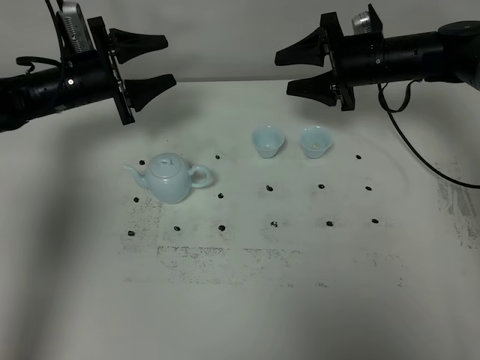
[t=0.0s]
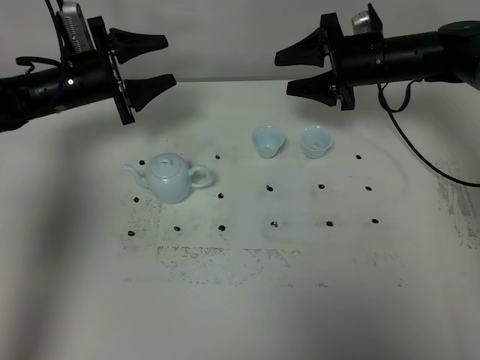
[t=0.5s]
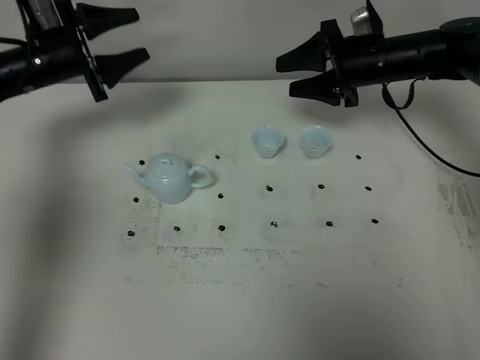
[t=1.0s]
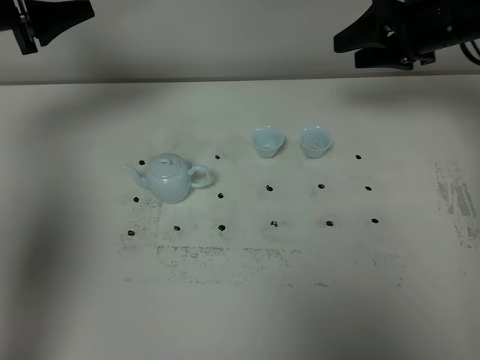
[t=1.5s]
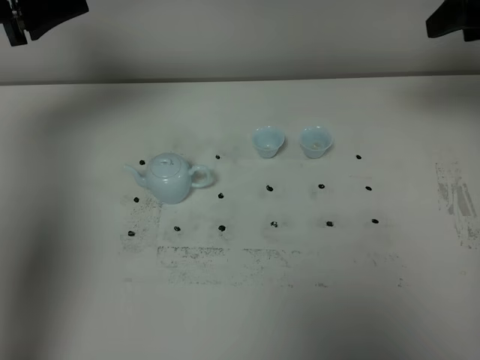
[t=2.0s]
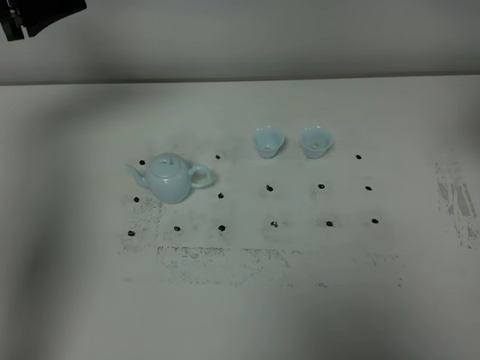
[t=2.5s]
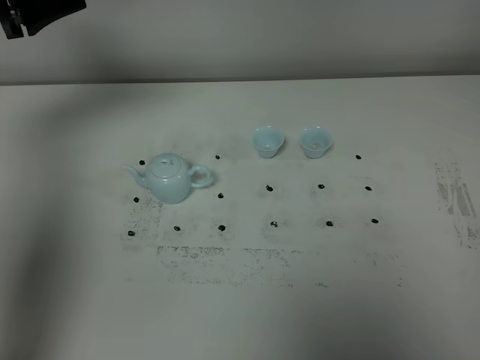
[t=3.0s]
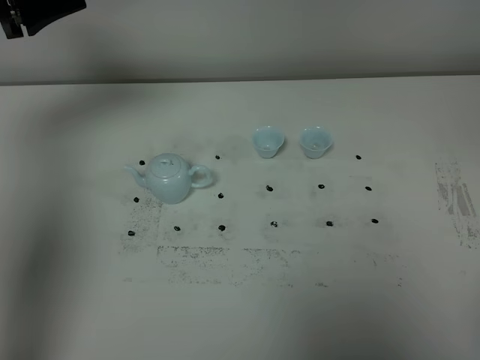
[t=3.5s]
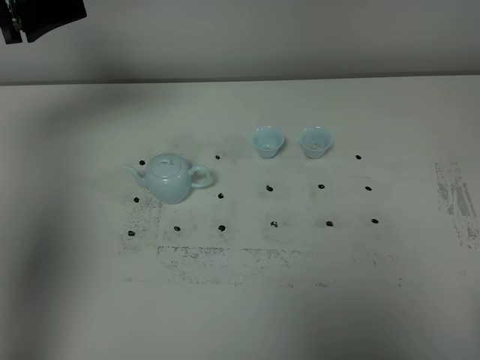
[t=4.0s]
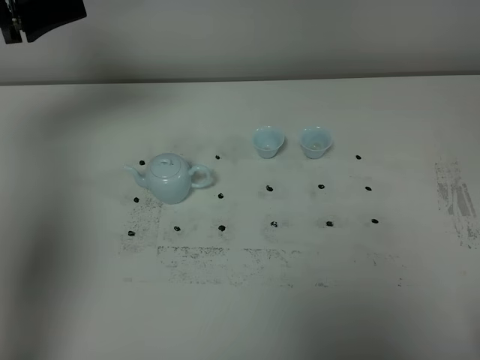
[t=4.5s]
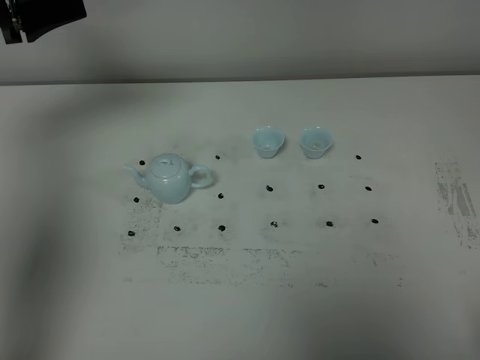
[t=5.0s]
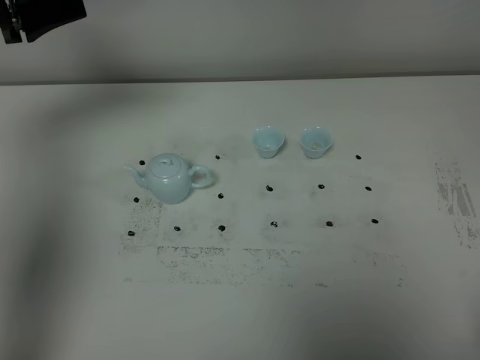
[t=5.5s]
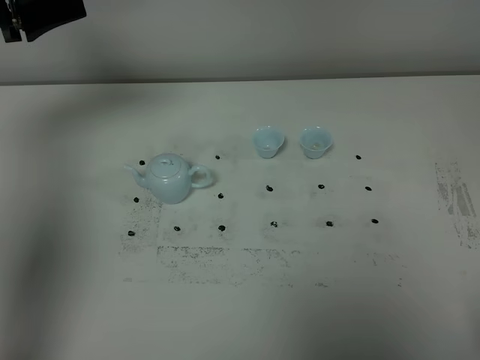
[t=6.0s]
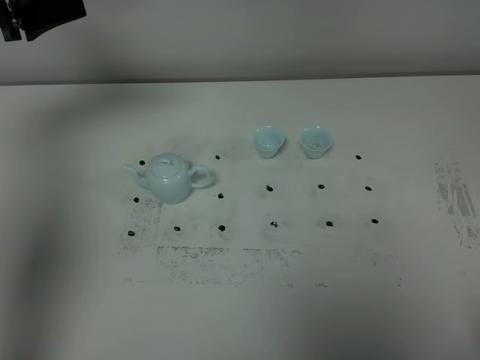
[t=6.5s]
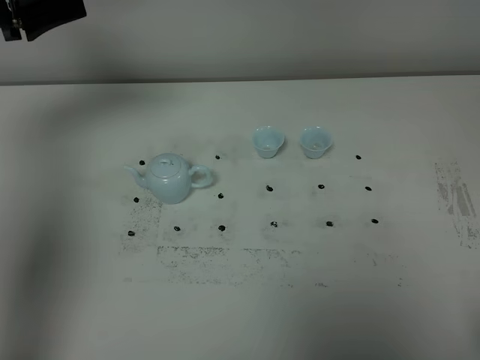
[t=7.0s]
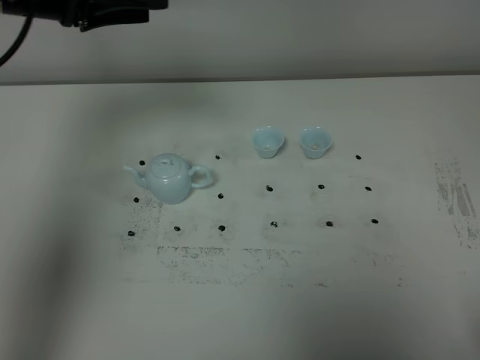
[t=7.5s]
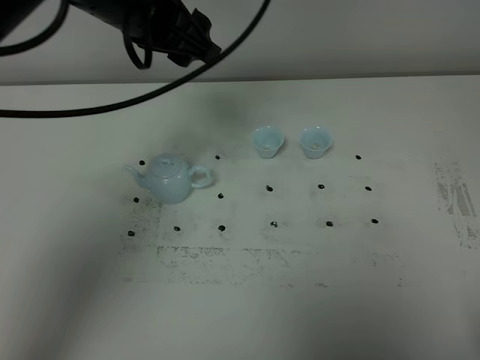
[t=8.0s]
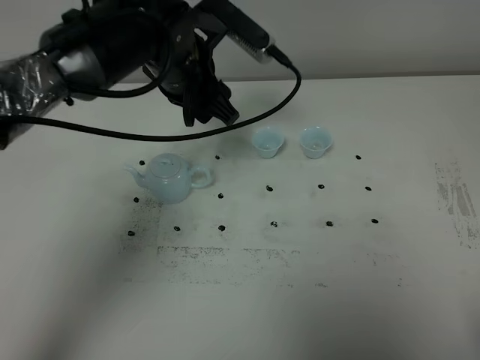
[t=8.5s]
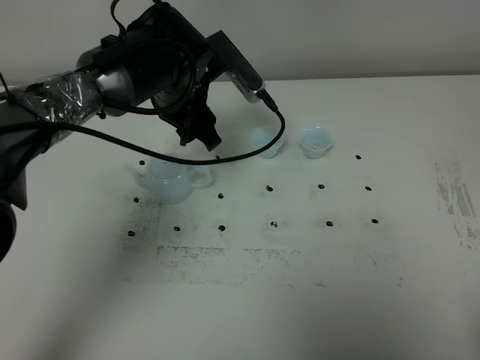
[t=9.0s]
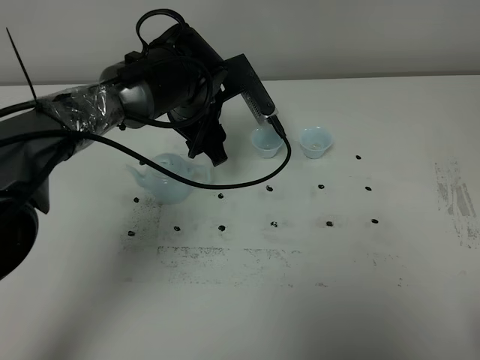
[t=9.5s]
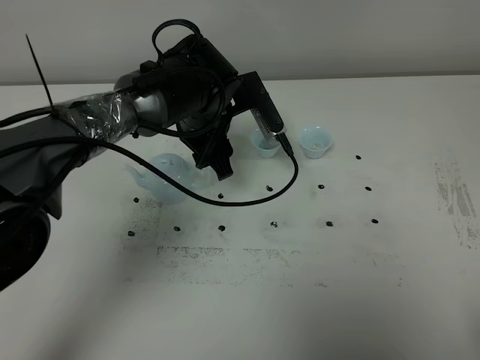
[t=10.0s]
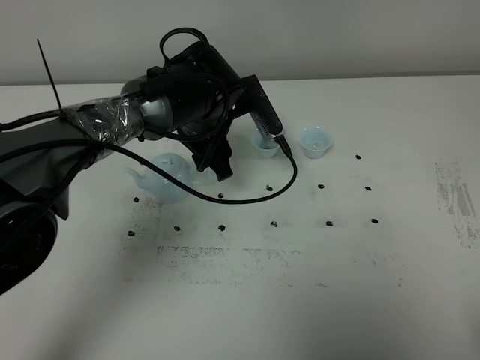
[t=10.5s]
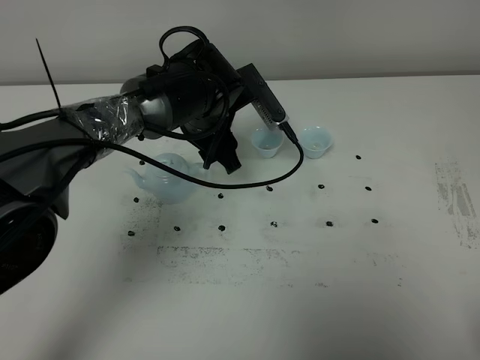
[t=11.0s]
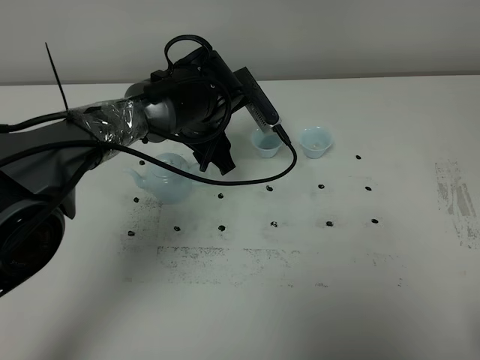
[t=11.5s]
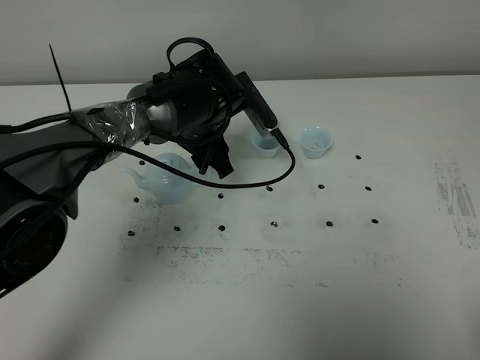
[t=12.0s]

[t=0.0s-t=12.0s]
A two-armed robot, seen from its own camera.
Task of the whole recording: grasp the blue porcelain teapot and pour the tea into the two blue porcelain teacups one by one, put the blue porcelain teapot back in its original place.
t=0.0s to t=2.0s: The left gripper heads upward, covering approximately 15 cm; the right gripper goes some 25 cm upward, backward and to the right.
t=2.0s to t=4.0s: The right gripper travels backward by about 40 cm.
t=4.0s to t=6.0s: Both grippers stay about where they are.
t=6.0s to t=8.0s: The left gripper goes some 20 cm to the right.
t=8.0s to t=10.0s: The left gripper shifts about 15 cm downward.
t=10.0s to t=12.0s: The grippers make only small movements.

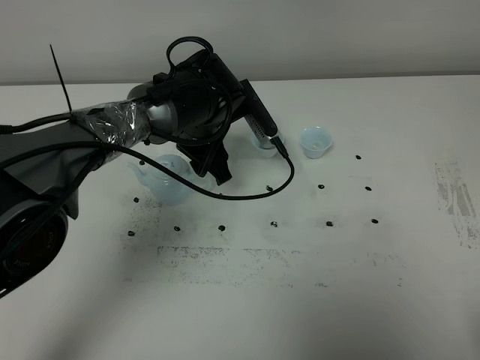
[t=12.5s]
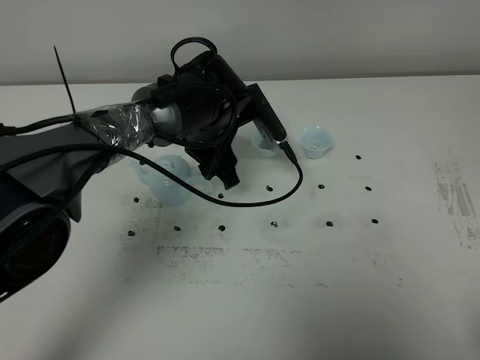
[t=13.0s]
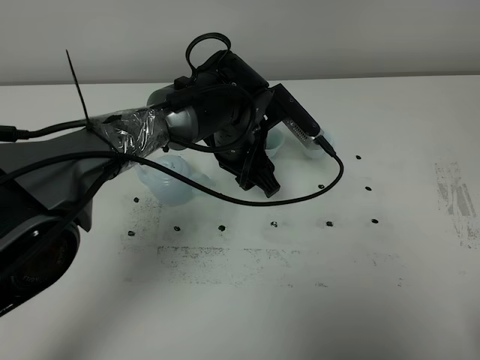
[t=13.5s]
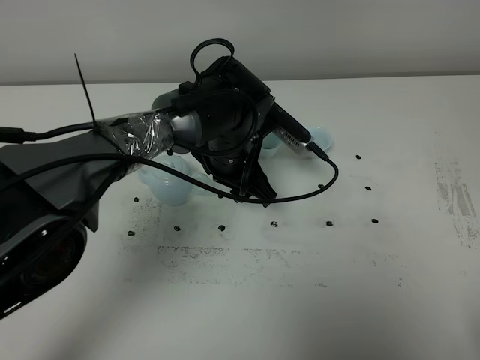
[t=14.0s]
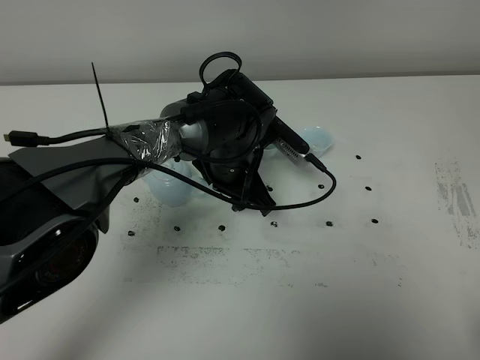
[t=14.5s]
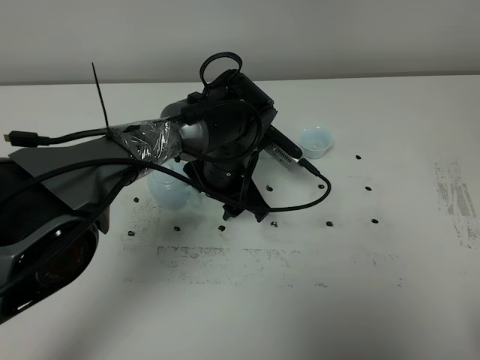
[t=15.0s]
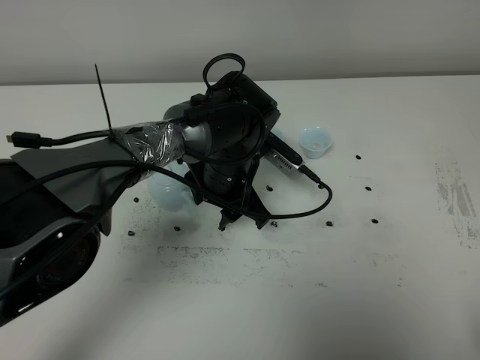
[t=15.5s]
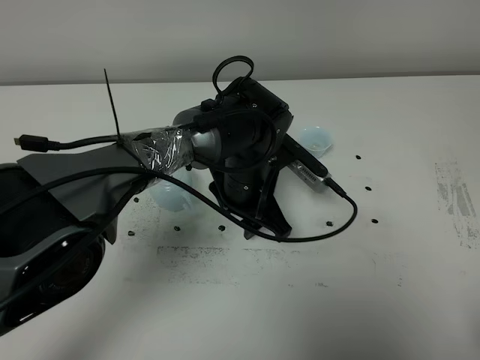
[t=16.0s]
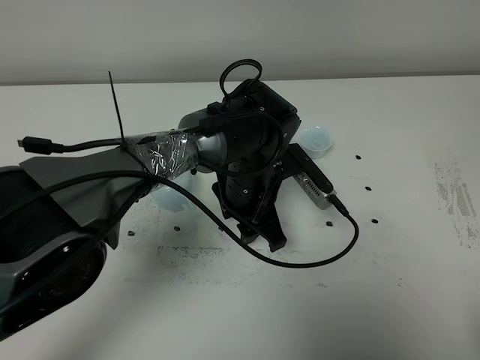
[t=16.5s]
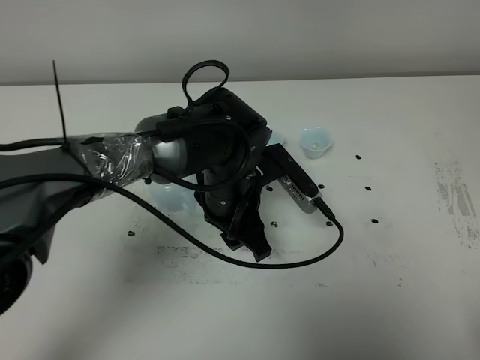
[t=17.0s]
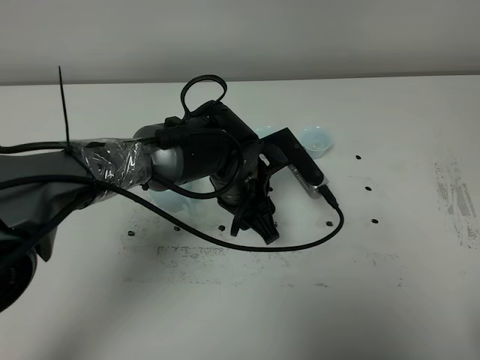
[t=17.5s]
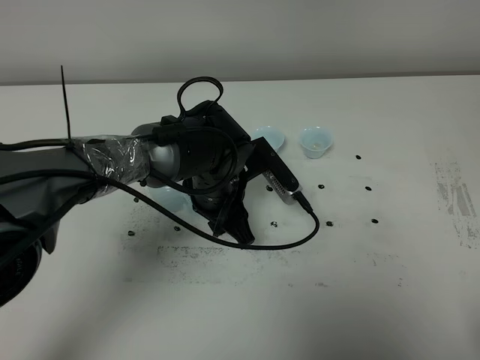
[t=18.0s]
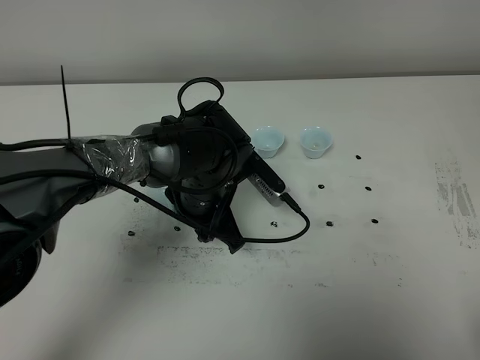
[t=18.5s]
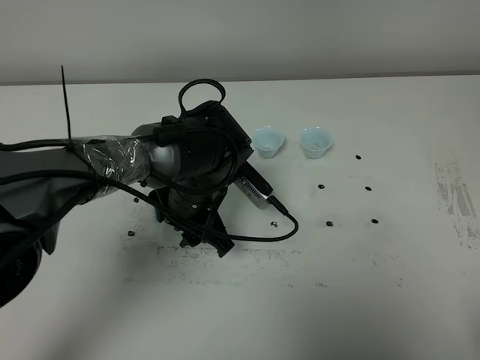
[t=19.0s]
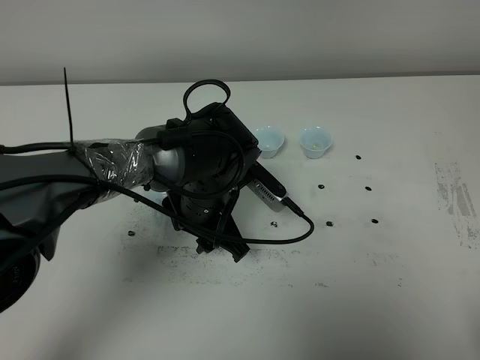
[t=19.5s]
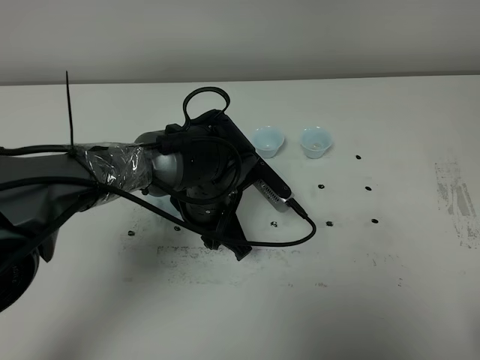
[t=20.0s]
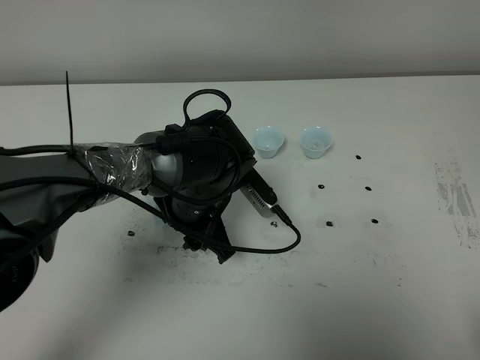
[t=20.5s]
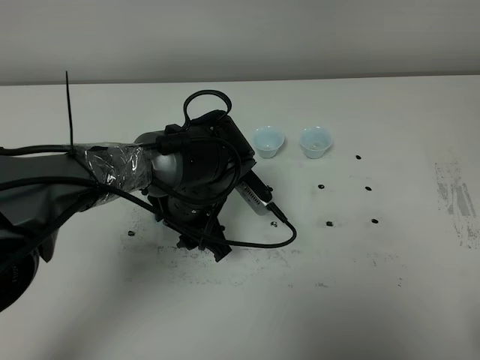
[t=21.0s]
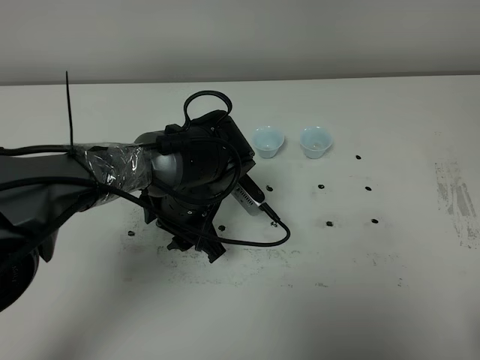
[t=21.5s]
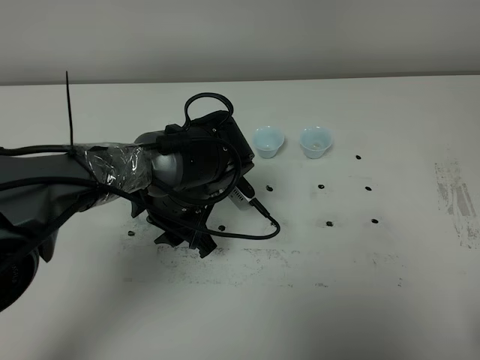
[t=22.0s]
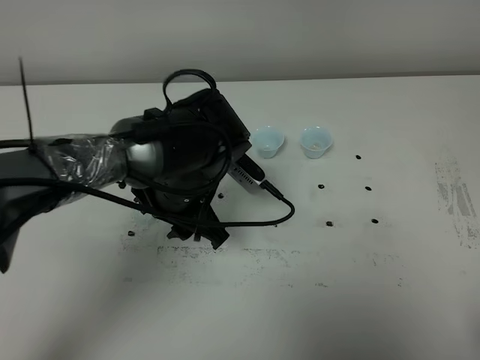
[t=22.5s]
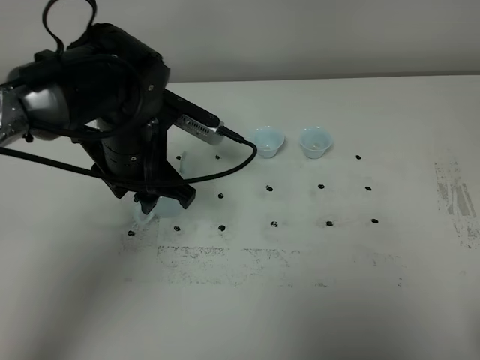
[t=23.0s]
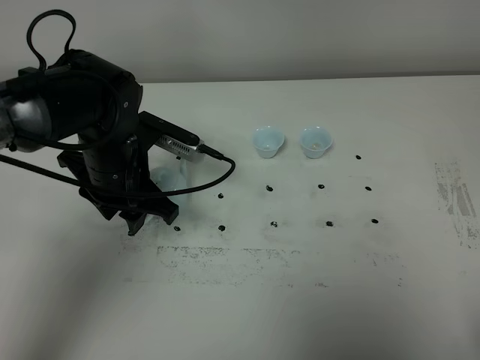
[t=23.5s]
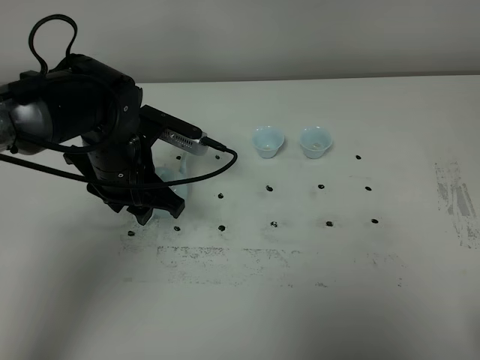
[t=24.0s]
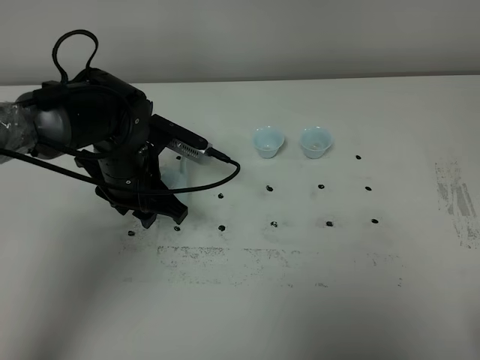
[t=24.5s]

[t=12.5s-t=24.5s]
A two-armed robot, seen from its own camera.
Task of the whole recording: grasp the blue porcelain teapot and pour the tea into the two blue porcelain teacups one by one, put the blue porcelain teapot back in its original place.
t=12.5s to t=14.5s: The left gripper changes place by roughly 5 cm.
t=14.5s to t=16.5s: The grippers move only a little.
t=16.5s to t=18.5s: The left gripper heads to the left, covering some 5 cm.
t=18.5s to t=20.5s: The grippers make only small movements.
t=20.5s to t=22.5s: The left gripper ends up some 5 cm from where it was.
t=22.5s to t=24.5s: The left gripper moves to the left, some 10 cm.

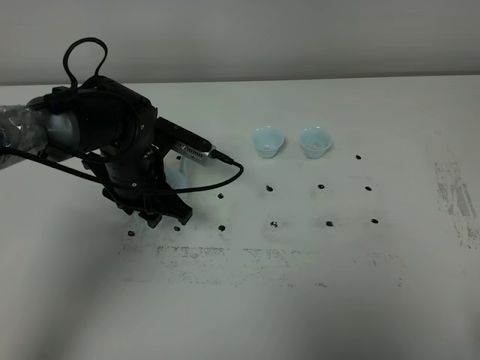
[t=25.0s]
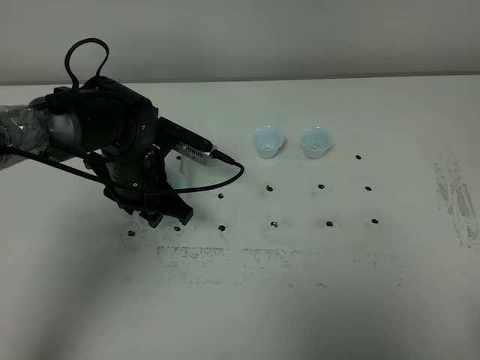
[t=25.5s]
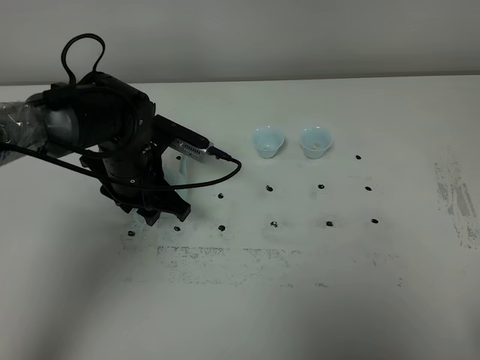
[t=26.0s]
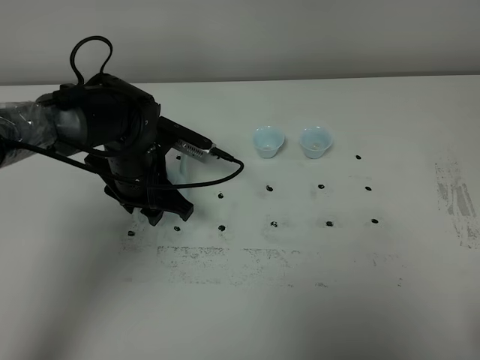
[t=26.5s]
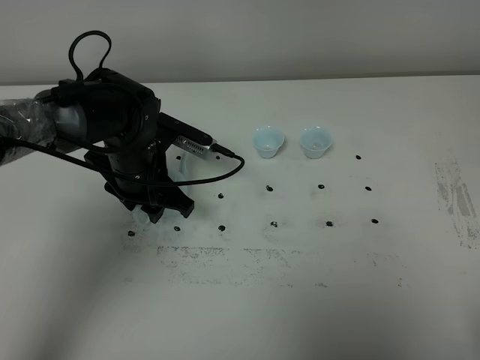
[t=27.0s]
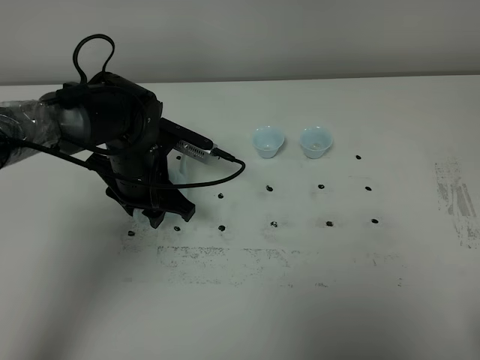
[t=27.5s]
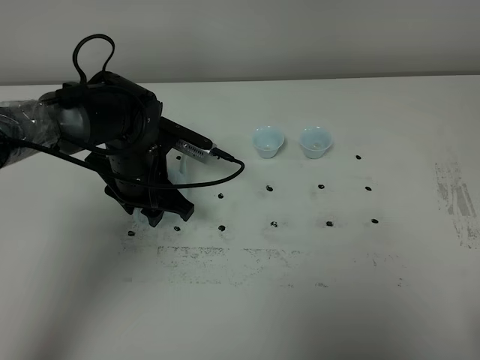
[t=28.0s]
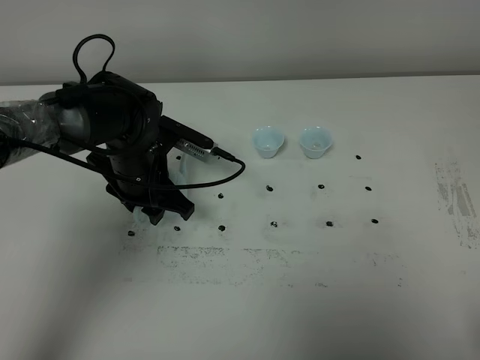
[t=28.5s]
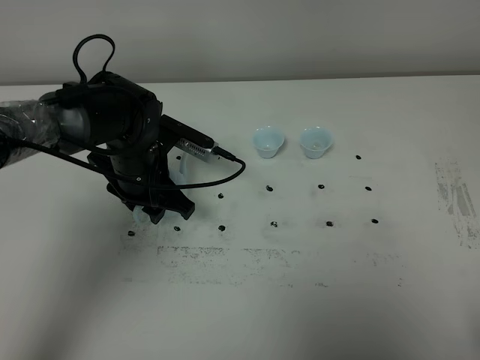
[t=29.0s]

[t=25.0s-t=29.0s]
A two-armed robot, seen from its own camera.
Task of the whole recording: grasp the blue porcelain teapot and pour the tea into the two blue porcelain teacups one by one, put the blue porcelain teapot back in its original place.
t=25.0s to t=27.0s: Neither gripper changes place.
t=27.0s to t=29.0s: Both grippers stay put.
